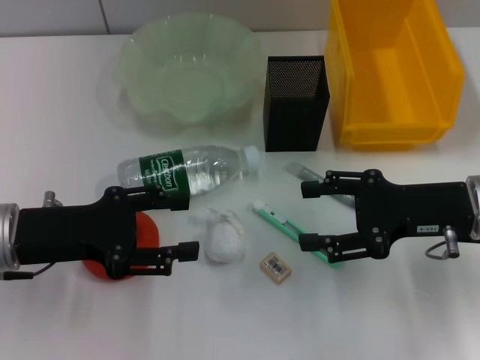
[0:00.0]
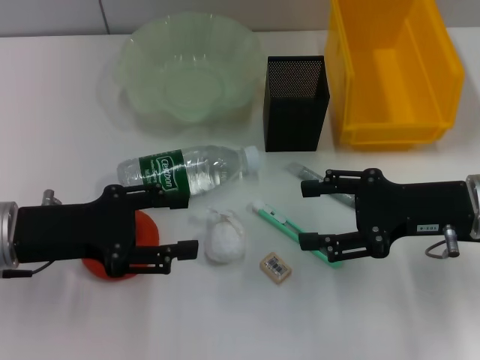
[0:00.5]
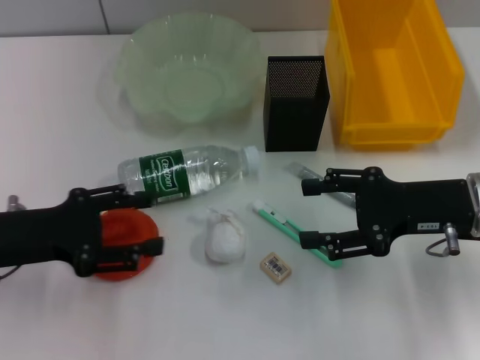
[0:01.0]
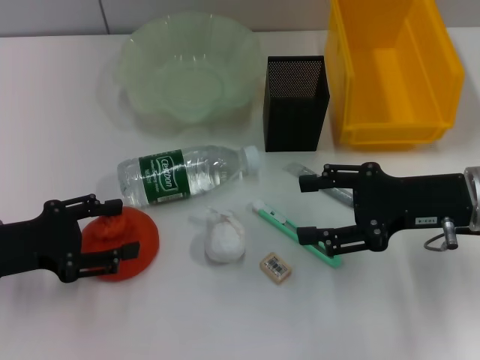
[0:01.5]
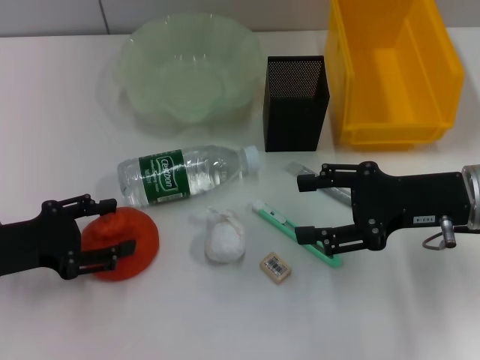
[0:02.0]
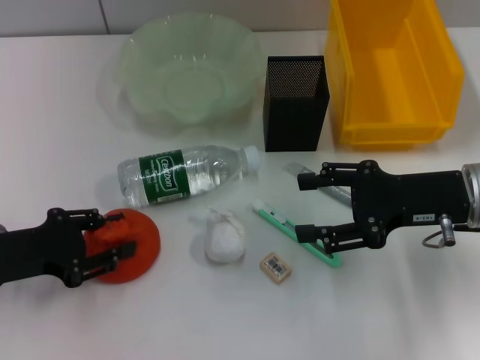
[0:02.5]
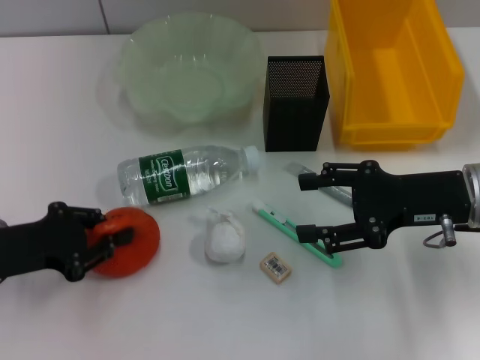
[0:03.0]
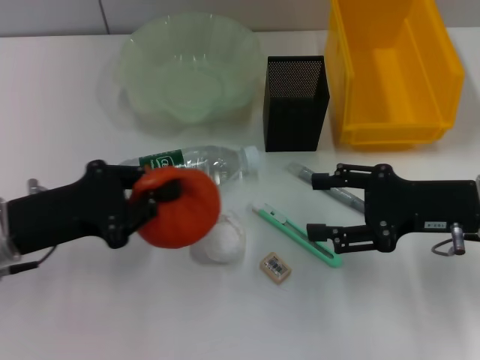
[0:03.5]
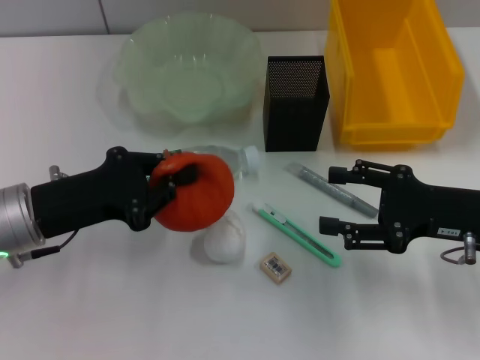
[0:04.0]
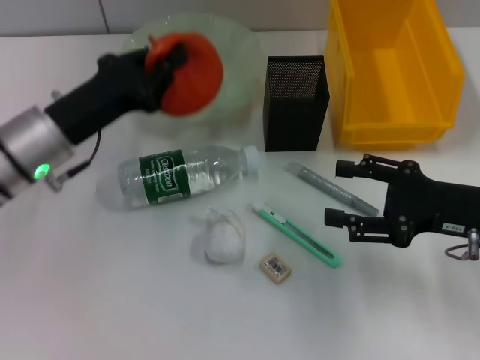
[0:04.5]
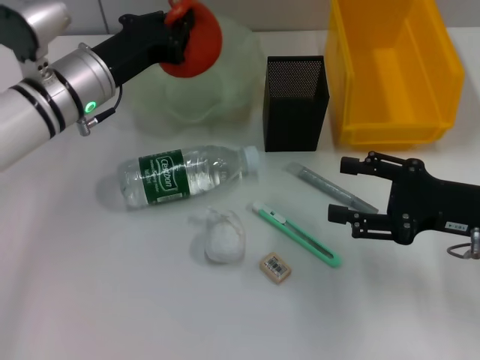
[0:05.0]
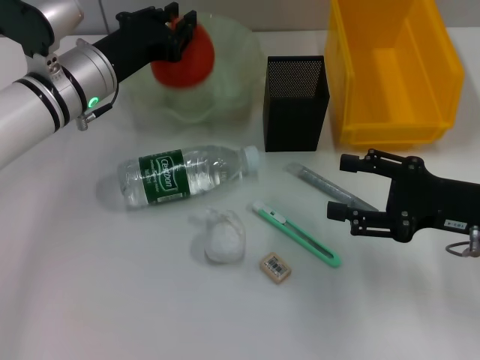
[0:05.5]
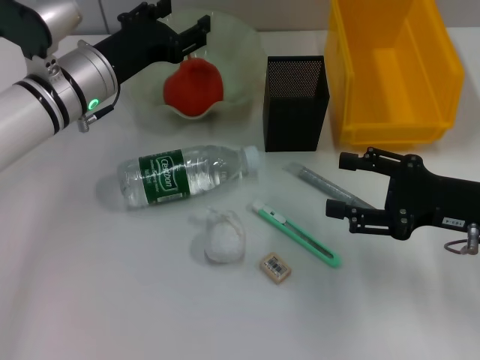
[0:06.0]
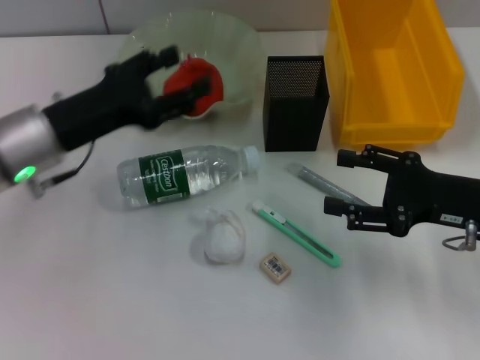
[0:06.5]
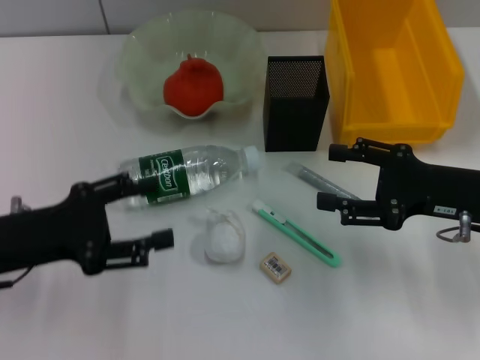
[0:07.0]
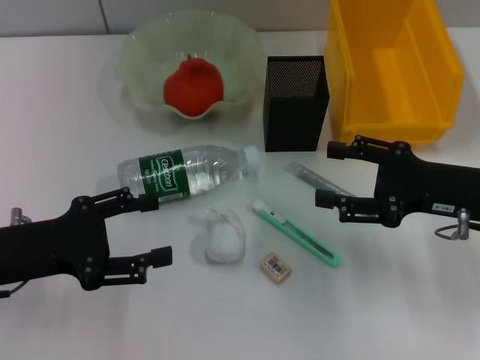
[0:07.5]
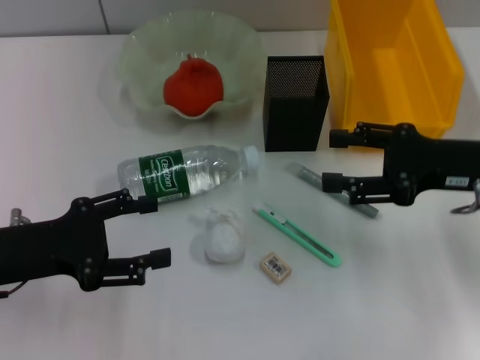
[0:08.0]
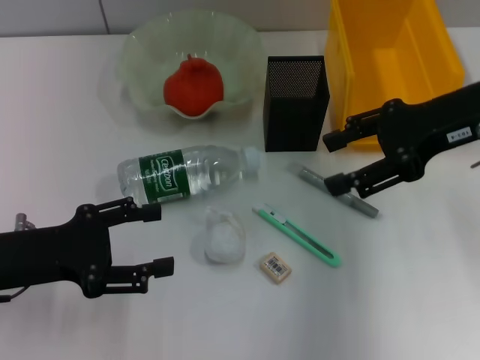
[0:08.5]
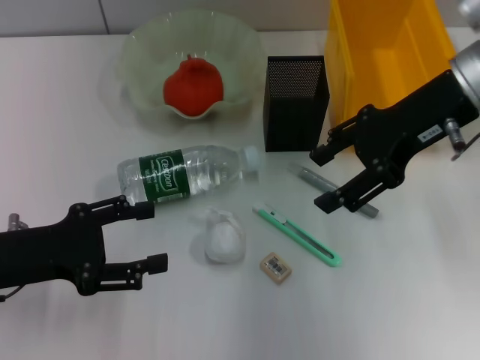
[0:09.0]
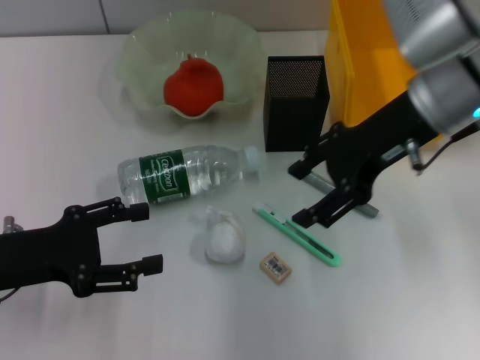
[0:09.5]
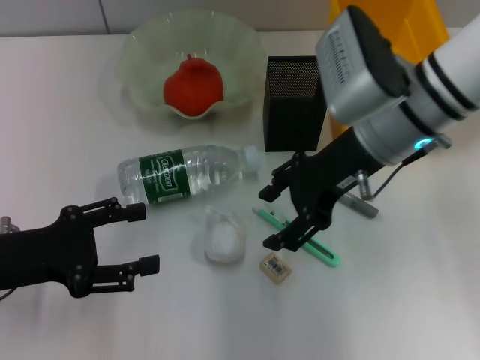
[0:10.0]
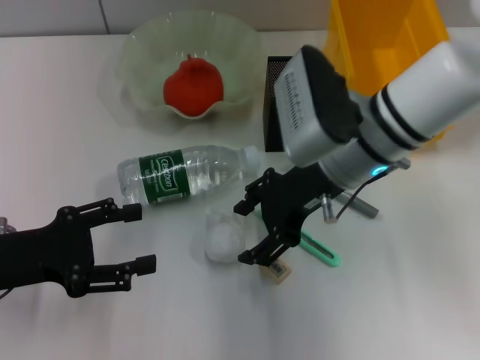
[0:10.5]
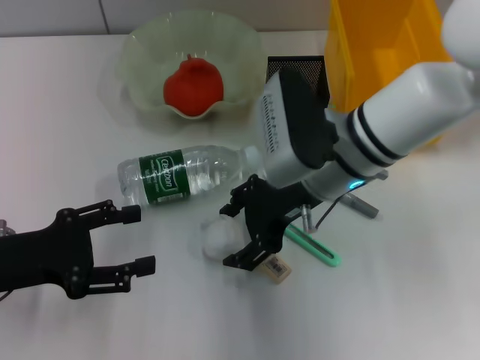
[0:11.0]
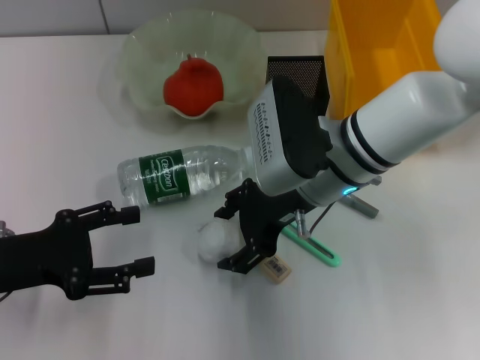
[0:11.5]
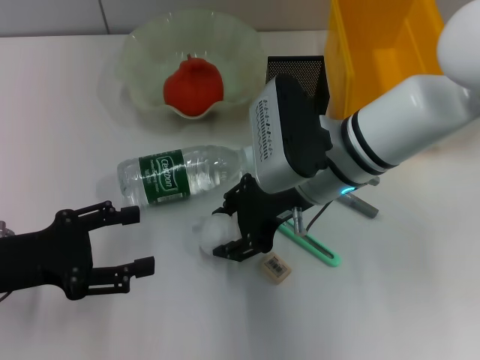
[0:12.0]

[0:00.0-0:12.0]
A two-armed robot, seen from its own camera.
Step, 0.0 to 2.5 s: Grab the orange with the left hand.
Step, 3.0 to 5.5 s: Place the orange into the fruit bowl with the left hand.
0.0 to 2.0 s: The left gripper travels to the left by roughly 5 cm.
2.0 to 4.0 s: The left gripper heads to the right, covering some 5 cm, and closes its fingers.
4.0 to 6.0 s: The left gripper heads forward and to the right, covering some 15 cm, and opens its fingers.
6.0 to 8.0 s: The right gripper shifts by roughly 5 cm; the left gripper moves backward and to the left, some 20 cm, and opens its fingers.
8.0 to 10.0 s: The right gripper shifts about 15 cm to the left.
10.0 to 12.0 s: The right gripper travels to the left by about 5 cm.

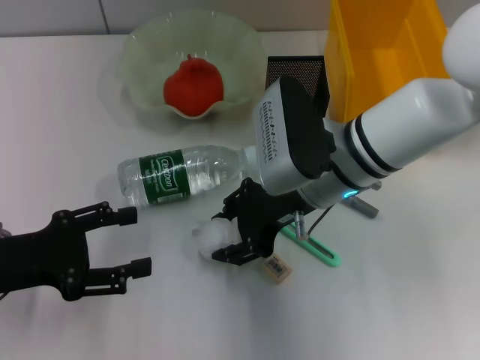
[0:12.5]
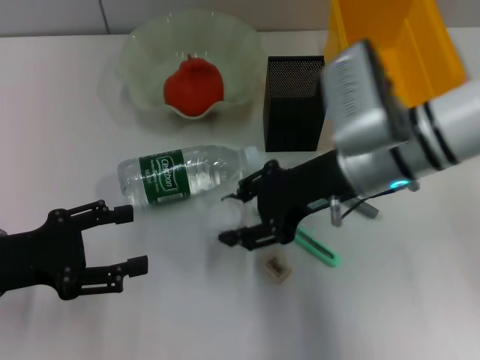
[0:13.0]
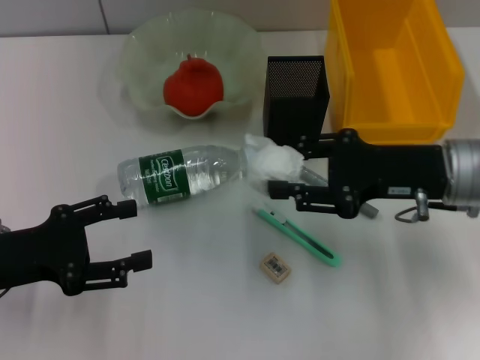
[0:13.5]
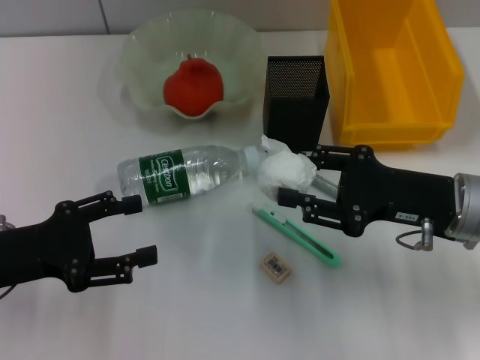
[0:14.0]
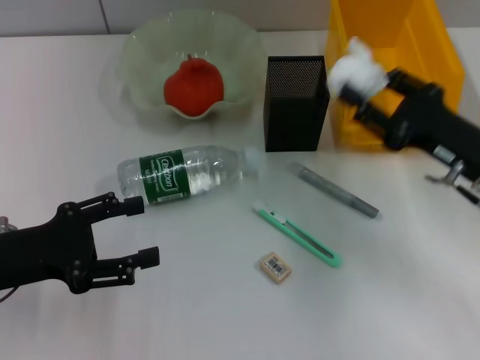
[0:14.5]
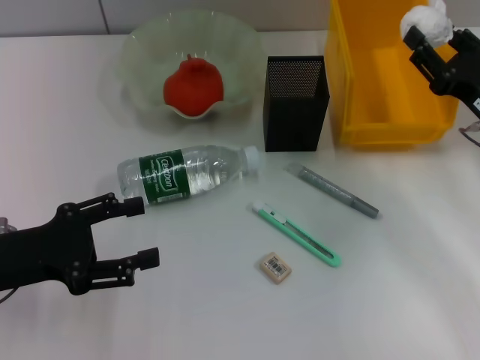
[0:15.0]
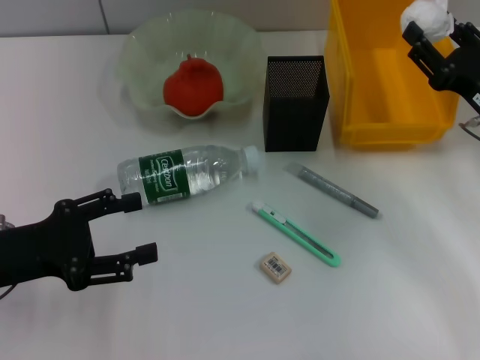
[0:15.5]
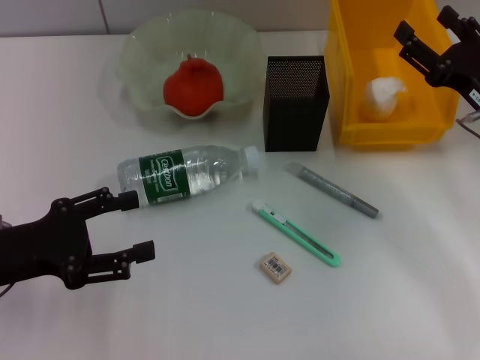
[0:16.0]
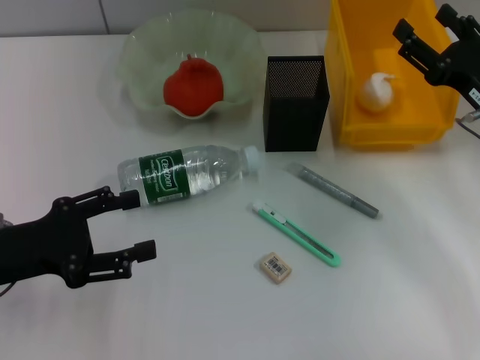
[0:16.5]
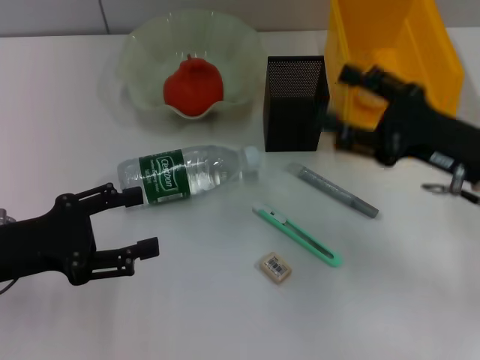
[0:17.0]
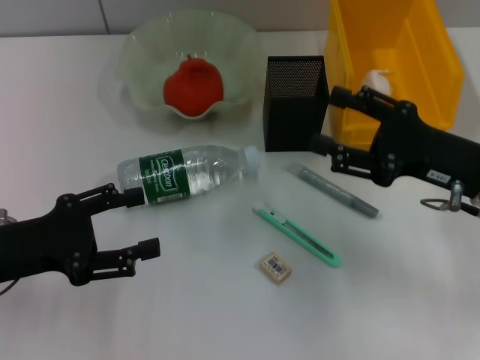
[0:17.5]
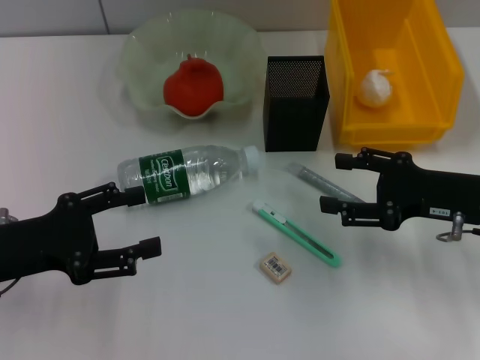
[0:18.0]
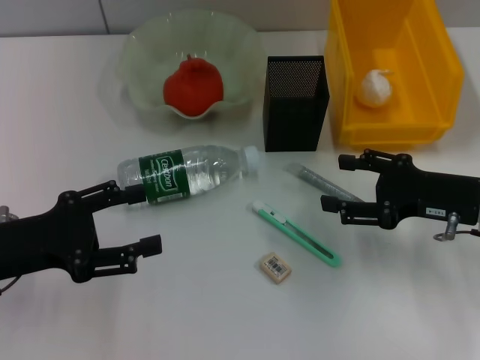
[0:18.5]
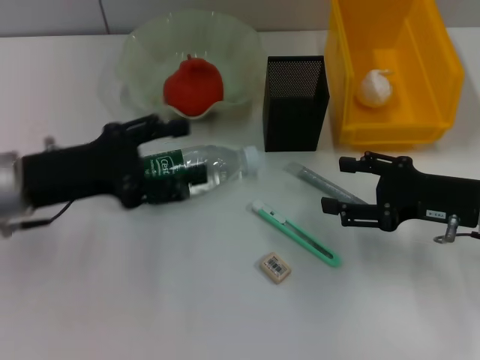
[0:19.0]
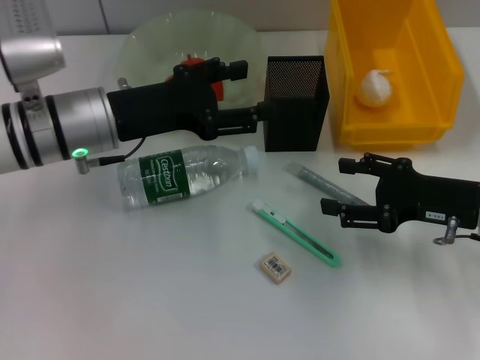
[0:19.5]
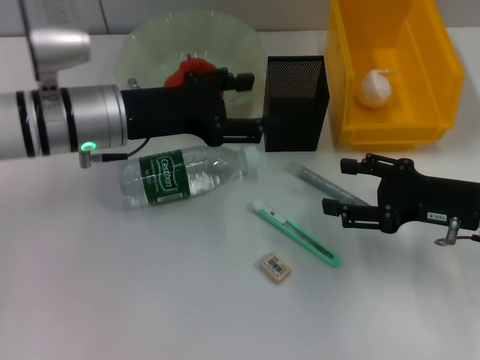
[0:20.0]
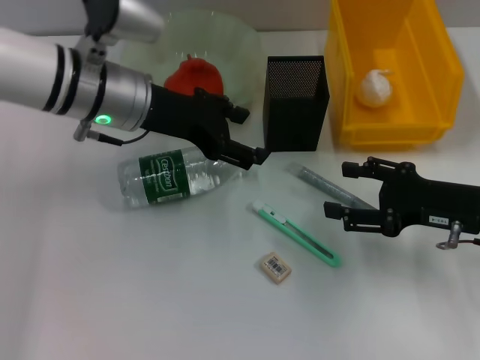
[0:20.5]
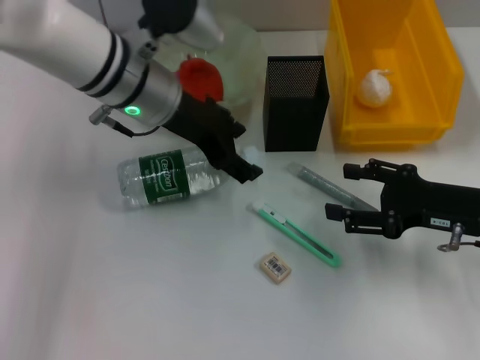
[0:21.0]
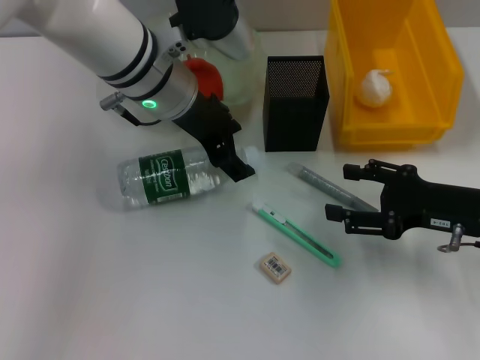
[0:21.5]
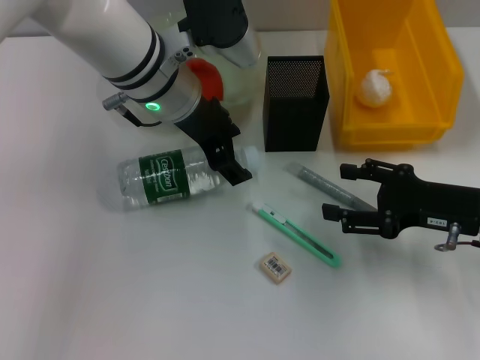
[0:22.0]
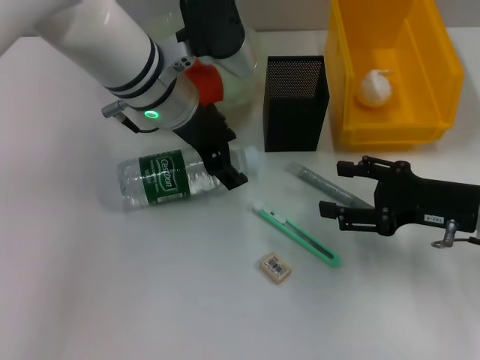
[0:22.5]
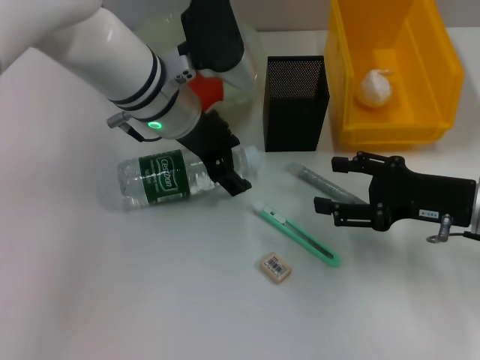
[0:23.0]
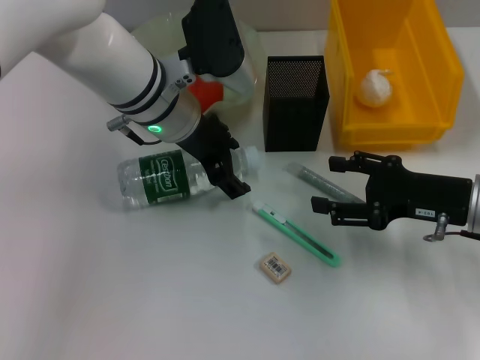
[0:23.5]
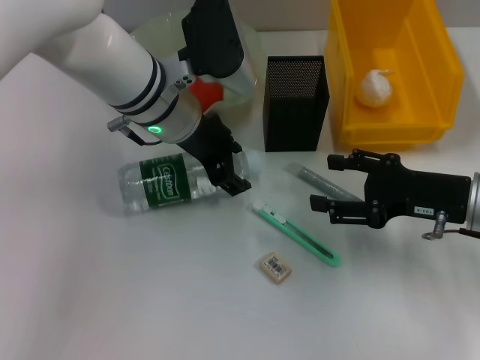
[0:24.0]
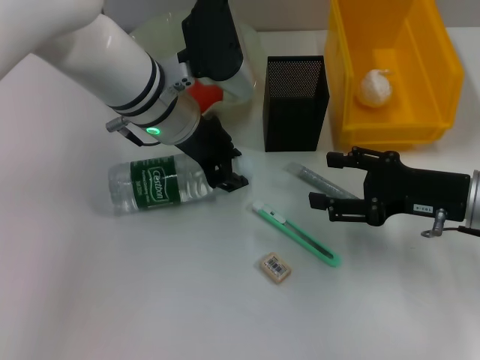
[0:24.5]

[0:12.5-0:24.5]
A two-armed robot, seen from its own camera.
Step, 13.0 to 16.0 s: Place the paper ball into the trash can with the right hand.
12.5 to 14.5 s: The right gripper travels to the right by approximately 15 cm.
14.5 to 16.5 s: The right gripper opens.
18.5 to 20.5 s: The left gripper goes about 20 cm forward, to the right and upward.
20.5 to 22.5 s: The left gripper goes approximately 5 cm to the right.
22.5 to 24.5 s: The left gripper closes up.

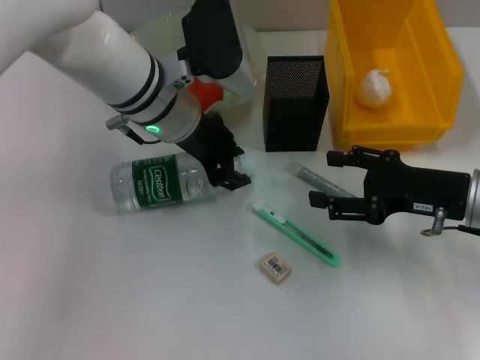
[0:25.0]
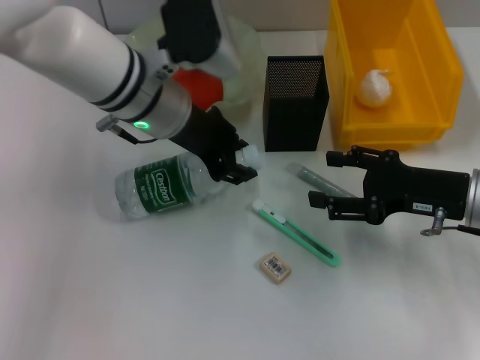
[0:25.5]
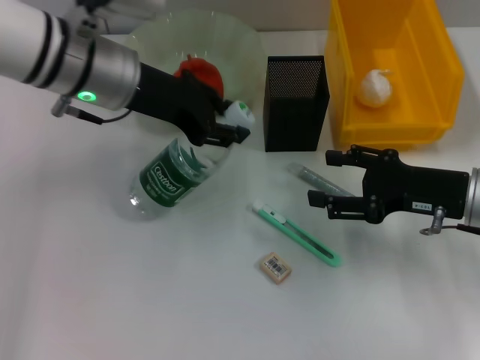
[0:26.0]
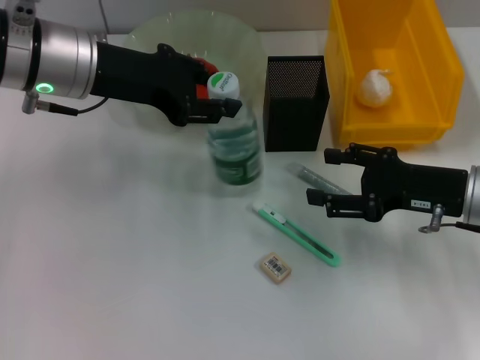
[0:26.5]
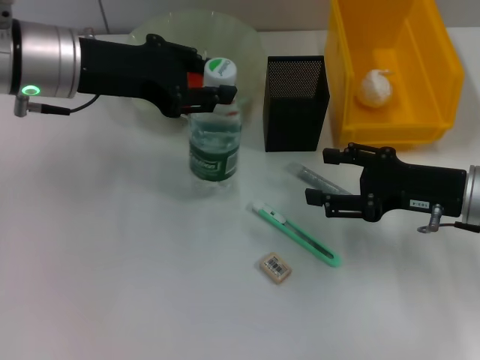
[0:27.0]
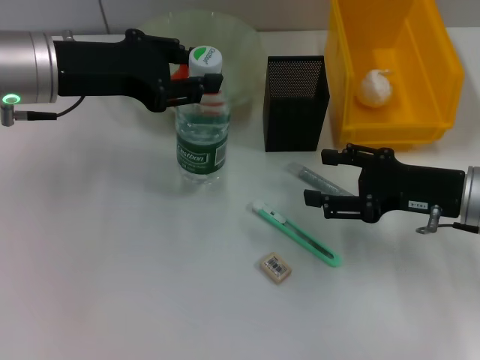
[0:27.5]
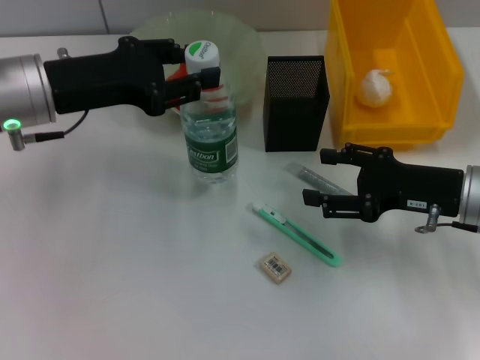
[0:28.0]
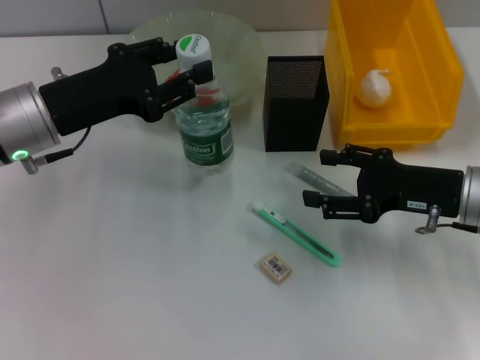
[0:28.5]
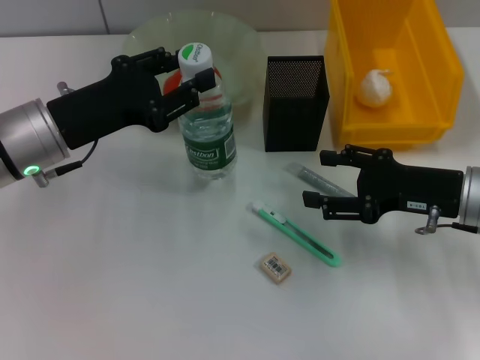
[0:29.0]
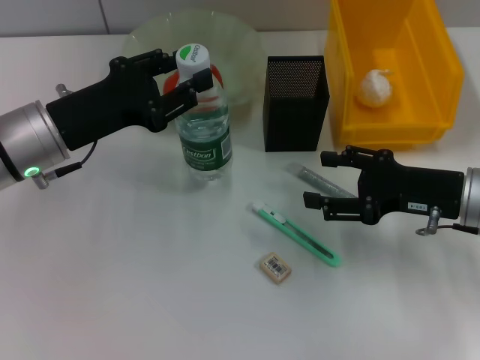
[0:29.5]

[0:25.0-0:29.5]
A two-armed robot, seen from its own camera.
25.0 to 27.0 s: The left gripper heads to the left and upward, covering approximately 10 cm.
27.0 to 29.5 s: The left gripper travels downward by about 10 cm.
